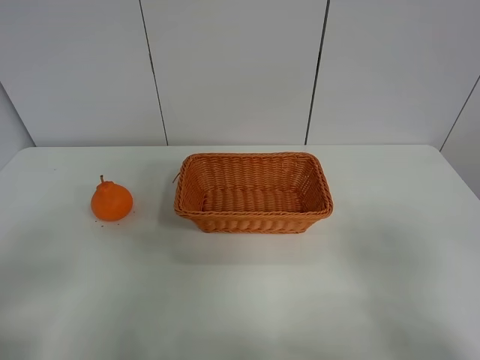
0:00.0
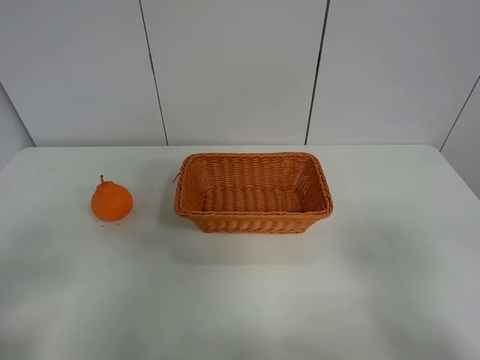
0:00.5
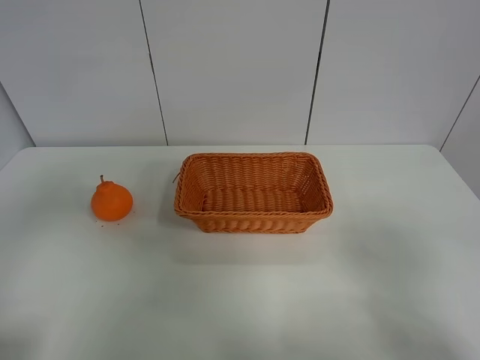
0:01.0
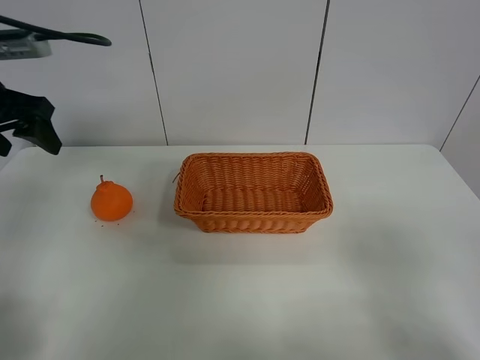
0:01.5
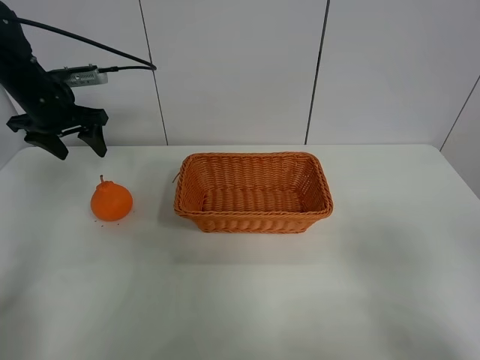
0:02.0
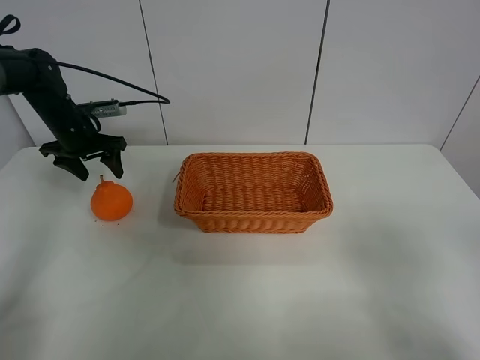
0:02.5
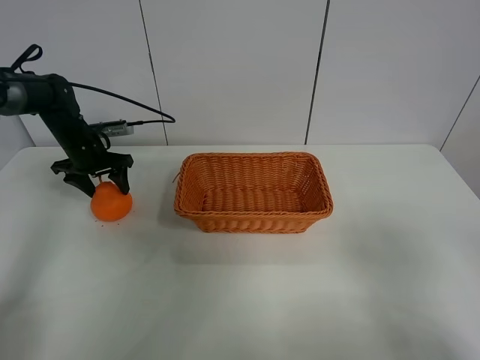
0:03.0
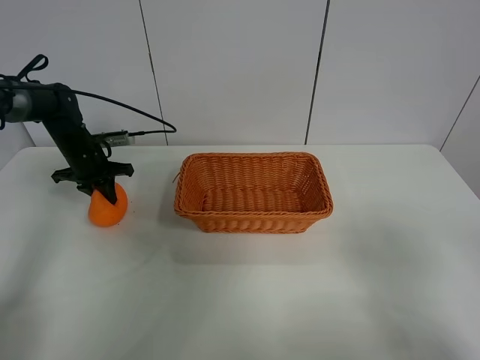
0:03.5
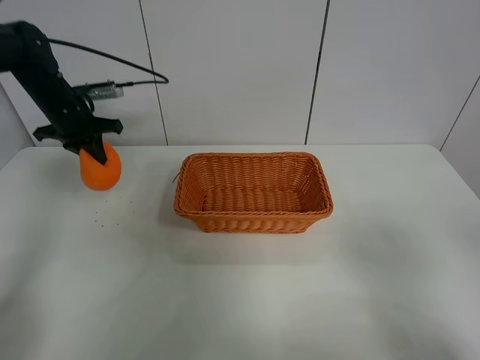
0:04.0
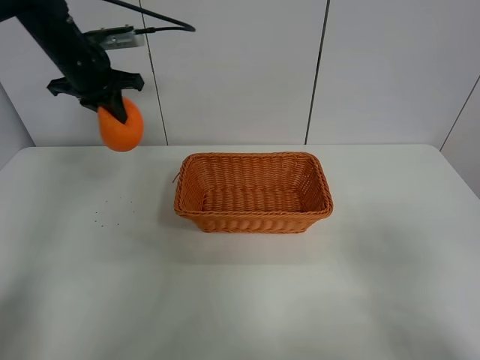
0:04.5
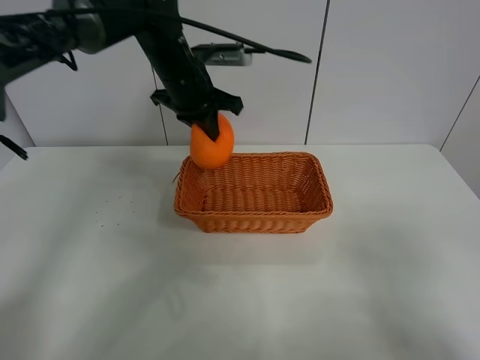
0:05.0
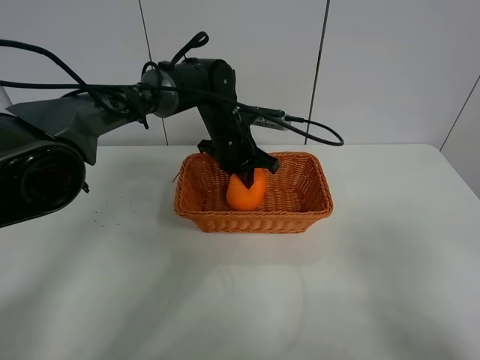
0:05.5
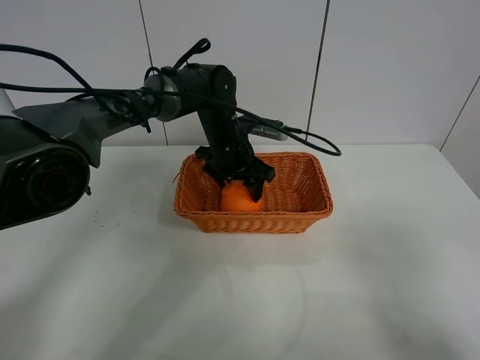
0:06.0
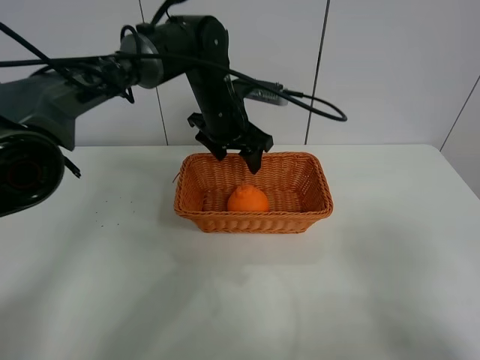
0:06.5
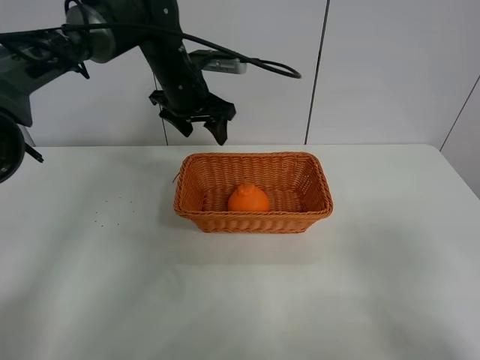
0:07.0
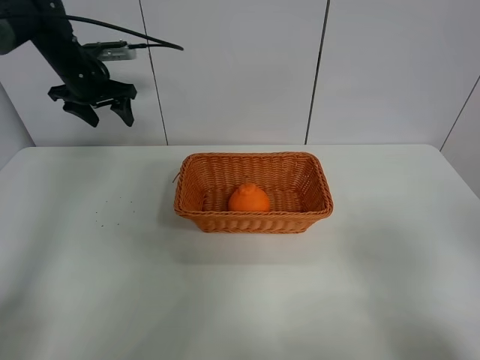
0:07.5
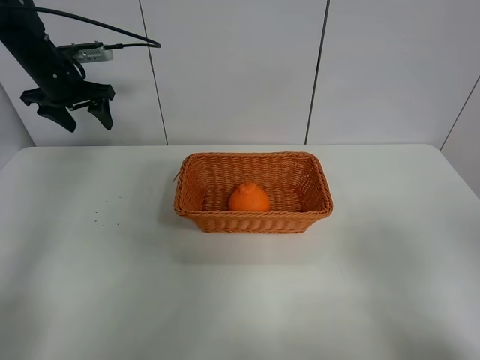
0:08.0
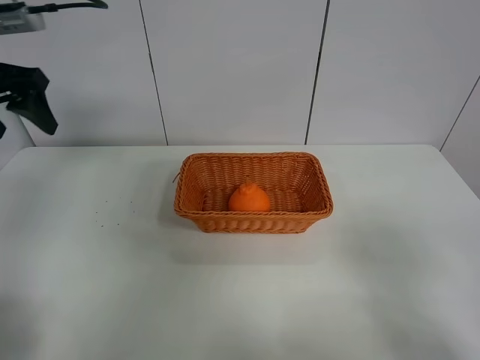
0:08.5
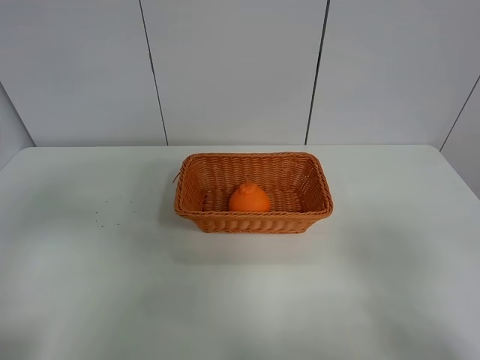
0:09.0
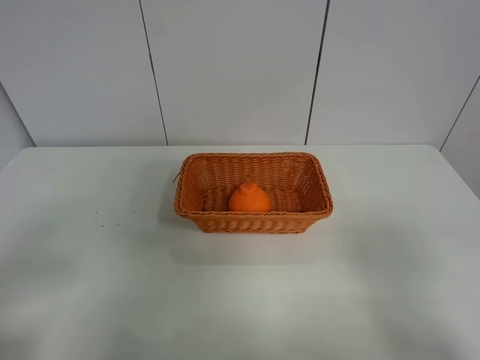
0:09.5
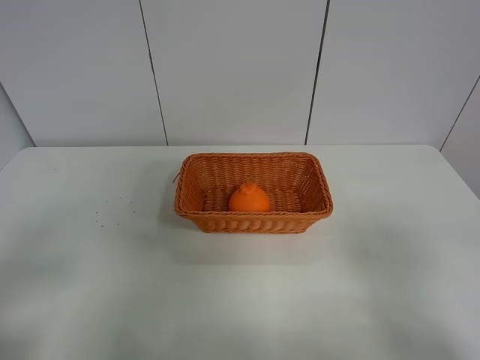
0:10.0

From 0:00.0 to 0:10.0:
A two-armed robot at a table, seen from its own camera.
Task of the whole recording: left gripper grabs oranges and puts them in the basket.
Step, from 0:00.0 to 0:03.5: Grasp the orange with left gripper.
Step, from 0:04.0 to 0:07.0: Place the orange in the basket with left gripper.
From 0:00.0 to 0:02.0: The left gripper goes approximately 40 cm forward.
From 0:02.0 to 0:04.0: The left gripper reaches about 15 cm downward, then returns, and closes its fingers.
From 0:04.0 to 0:06.0: The left gripper is displaced to the right by roughly 30 cm, and opens.
From 0:06.0 to 0:08.0: The left gripper goes about 30 cm to the left.
From 0:08.0 to 0:10.0: The left gripper travels backward by about 50 cm.

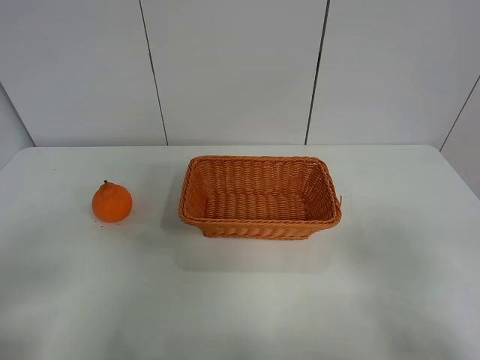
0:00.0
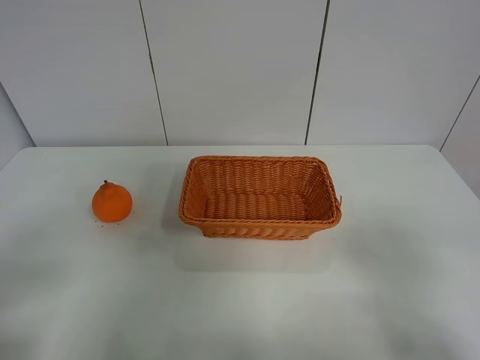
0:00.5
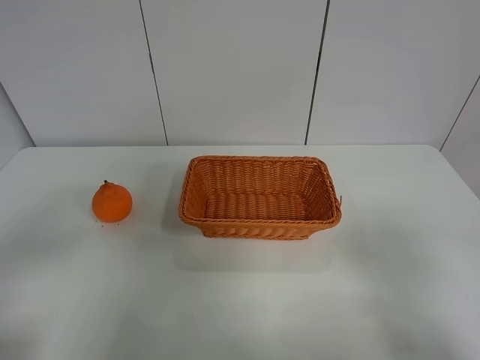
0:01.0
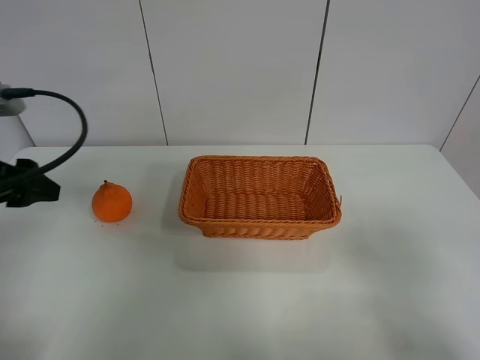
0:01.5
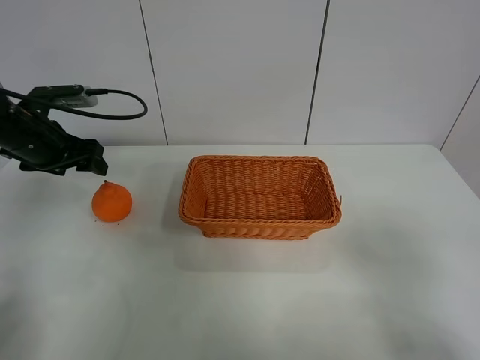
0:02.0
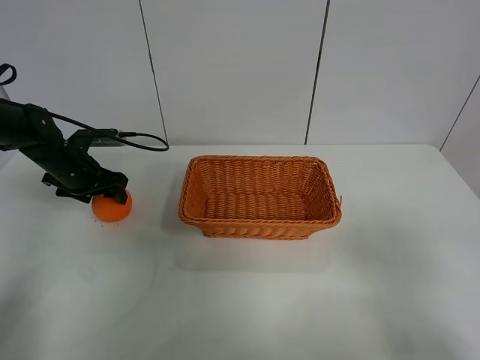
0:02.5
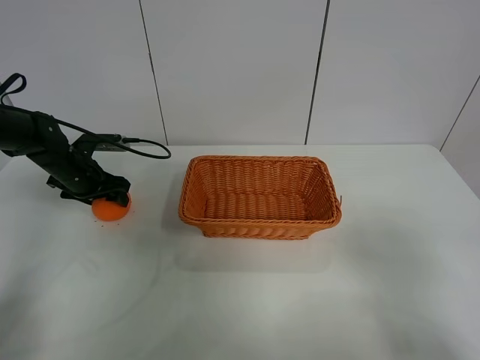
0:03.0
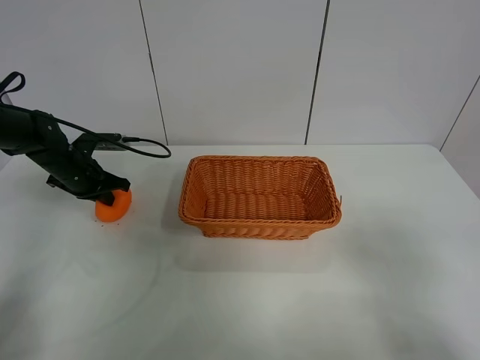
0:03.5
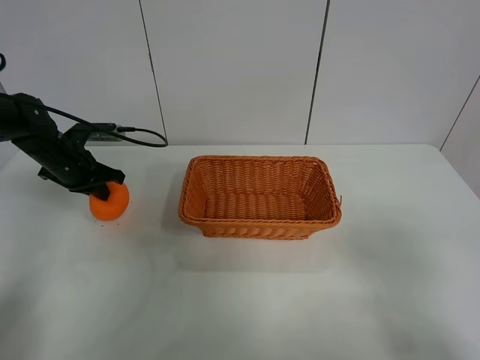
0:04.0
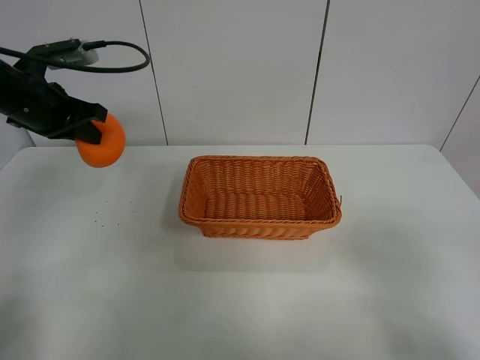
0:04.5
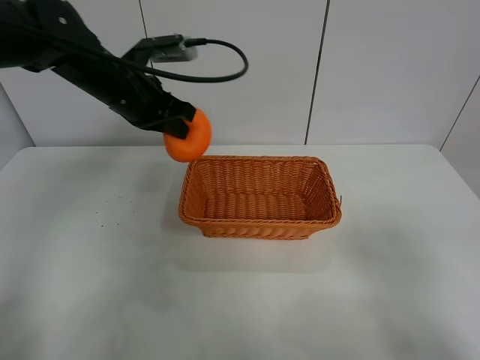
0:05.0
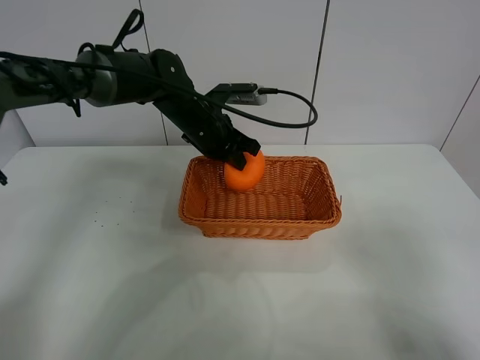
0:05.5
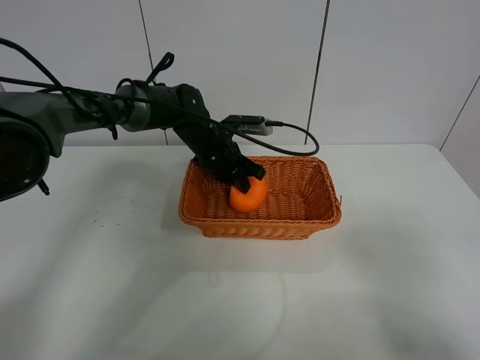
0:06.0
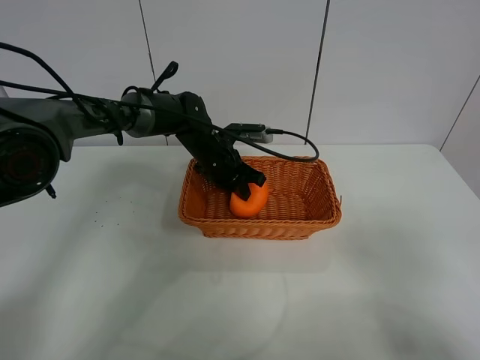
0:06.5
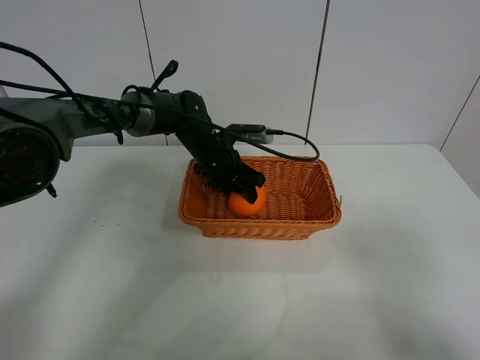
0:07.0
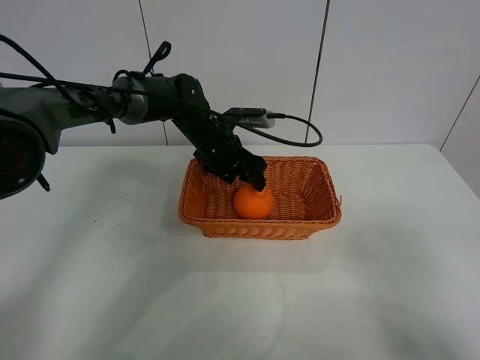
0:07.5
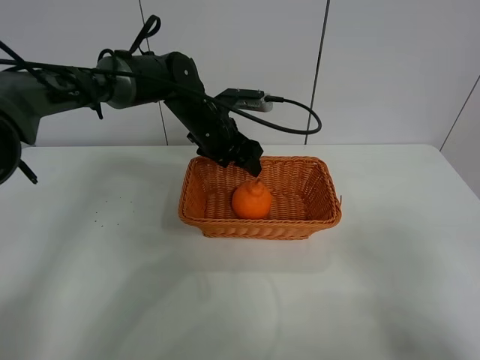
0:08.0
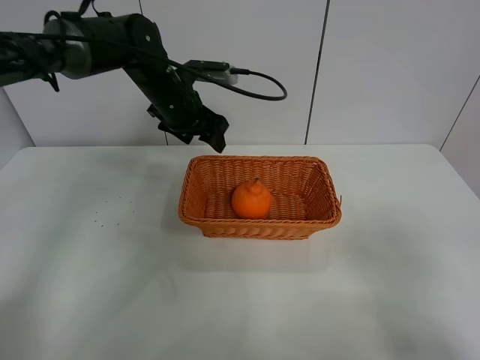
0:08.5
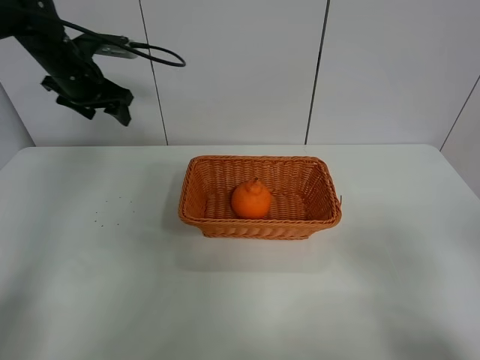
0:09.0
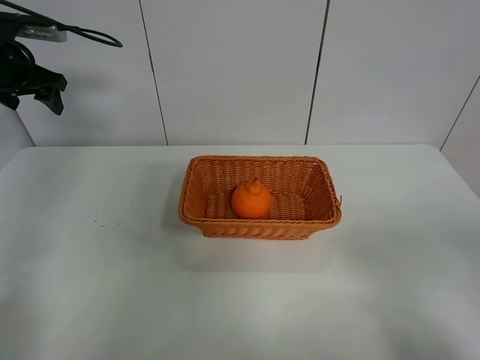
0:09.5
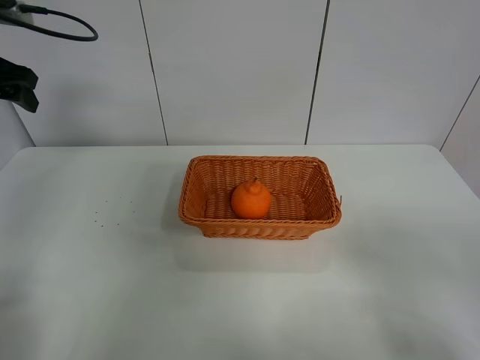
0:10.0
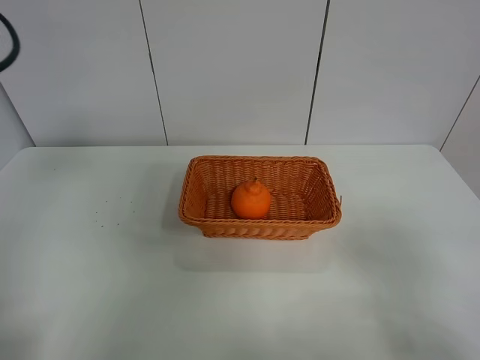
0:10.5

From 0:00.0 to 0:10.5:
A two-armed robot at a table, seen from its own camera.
Task of the whole recording: left gripper grabs oranges and puts them in the basket.
Step, from 0:00.0 to 0:03.5: Grasp the orange with left gripper.
Step, from 0:04.0 to 0:08.5: Place the orange in the basket with left gripper.
From 0:00.0 to 0:02.0: The left gripper shifts about 35 cm forward.
From 0:02.0 to 0:04.0: The left gripper is displaced downward by roughly 5 cm, and closes its fingers.
From 0:04.0 to 0:06.5: The left gripper heads to the right, covering about 25 cm.
From 0:06.5 to 0:08.5: The left gripper is displaced upward and to the left by some 15 cm, and opens up.
From 0:08.5 to 0:10.5: The left gripper heads backward, to the left and upward, covering approximately 35 cm.

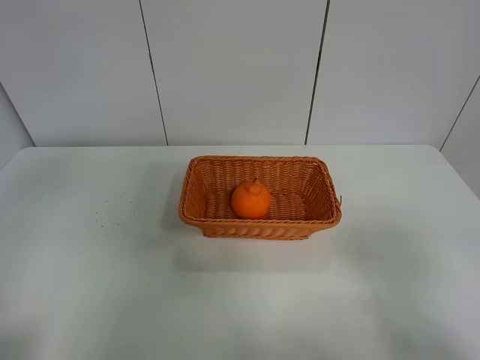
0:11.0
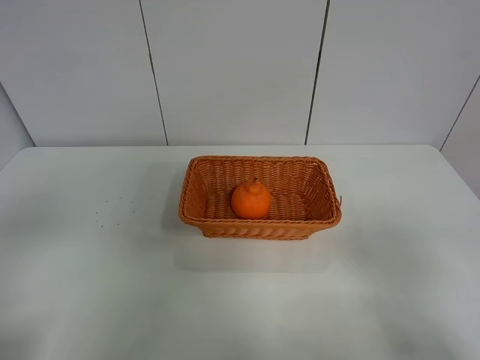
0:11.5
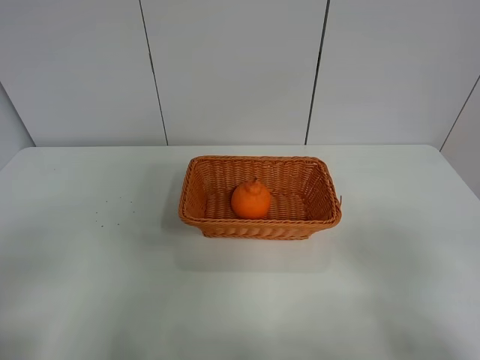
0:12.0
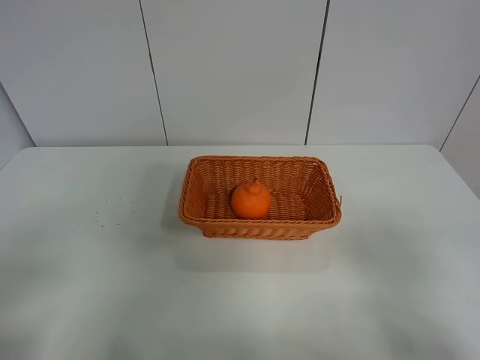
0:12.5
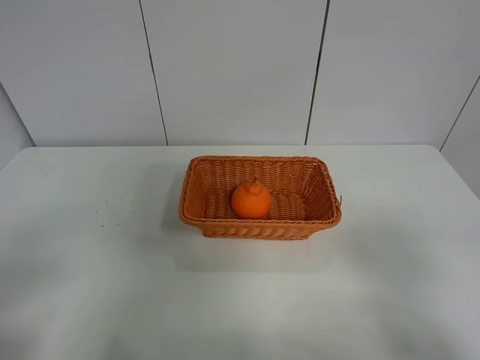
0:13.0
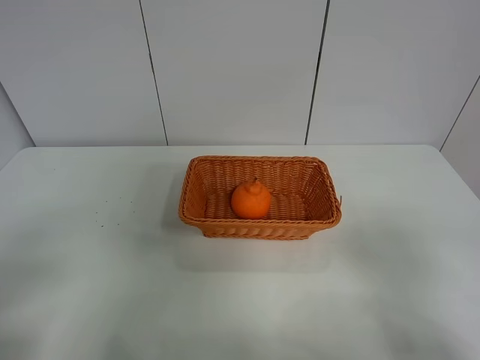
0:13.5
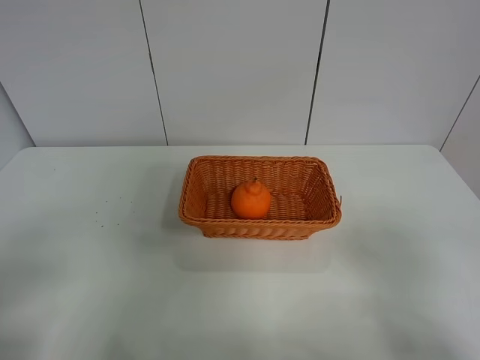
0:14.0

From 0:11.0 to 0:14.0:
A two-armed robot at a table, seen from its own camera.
Task of the whole recording: left gripper grabs oranges and puts them in the basket.
From 0:11.0 to 0:12.5: The left gripper shifts about 15 cm downward and backward.
From 0:12.5 to 0:14.0: The two grippers keep their place.
